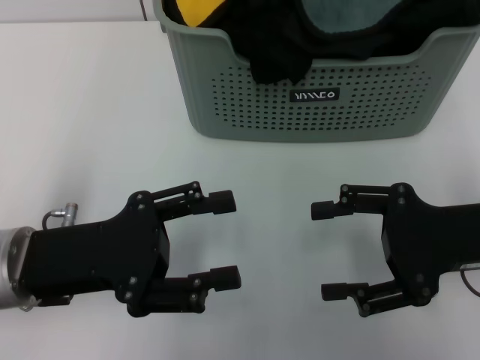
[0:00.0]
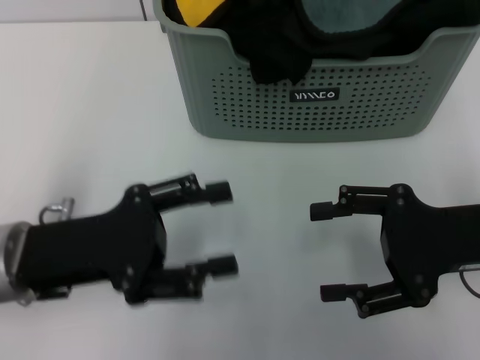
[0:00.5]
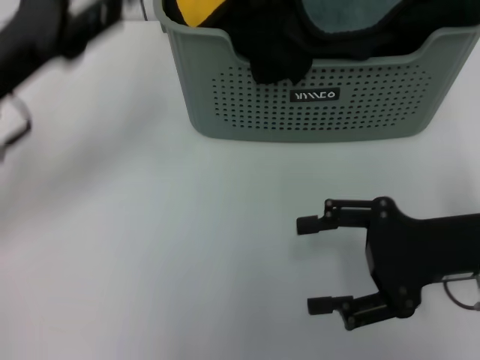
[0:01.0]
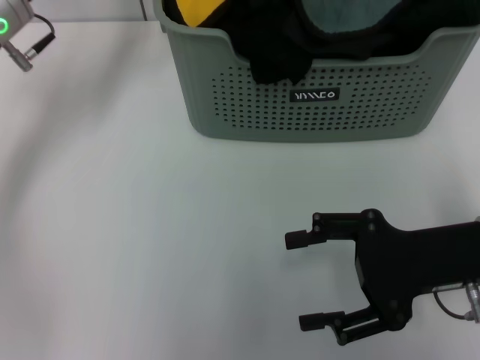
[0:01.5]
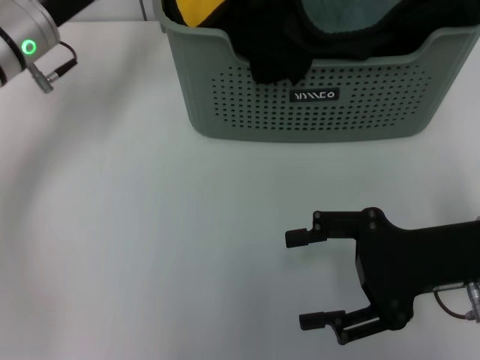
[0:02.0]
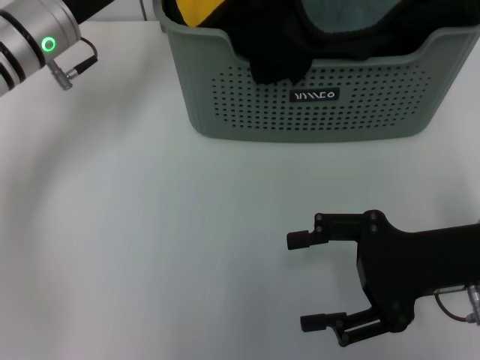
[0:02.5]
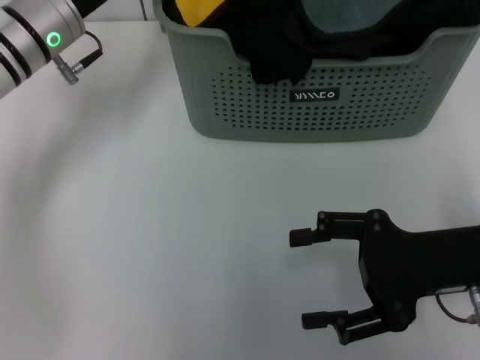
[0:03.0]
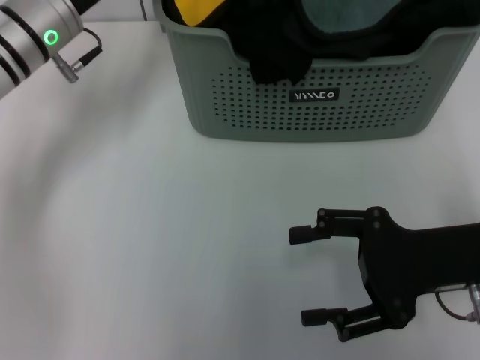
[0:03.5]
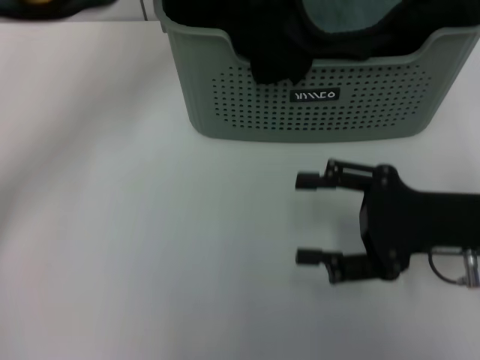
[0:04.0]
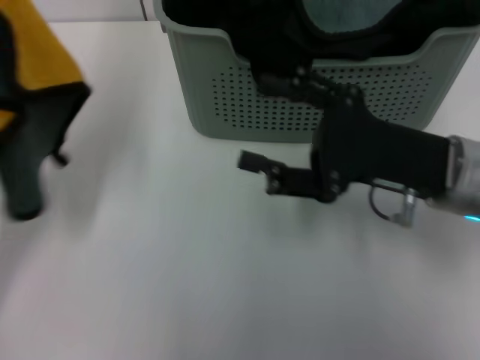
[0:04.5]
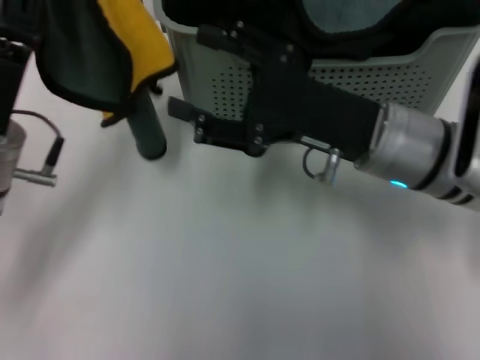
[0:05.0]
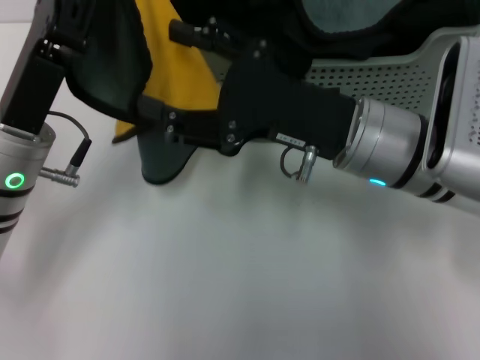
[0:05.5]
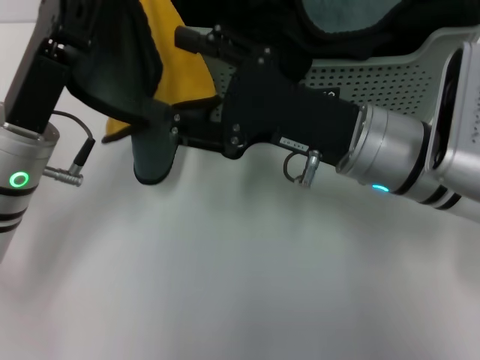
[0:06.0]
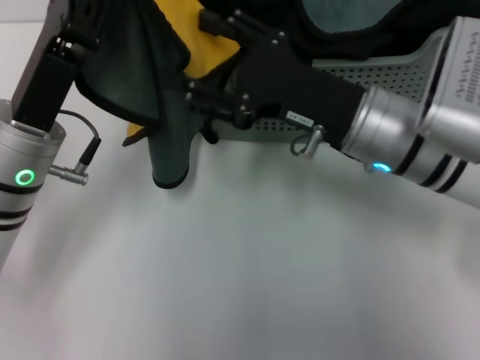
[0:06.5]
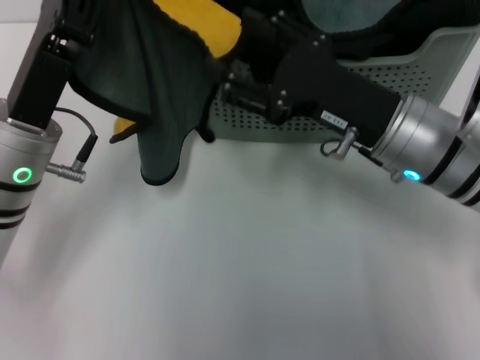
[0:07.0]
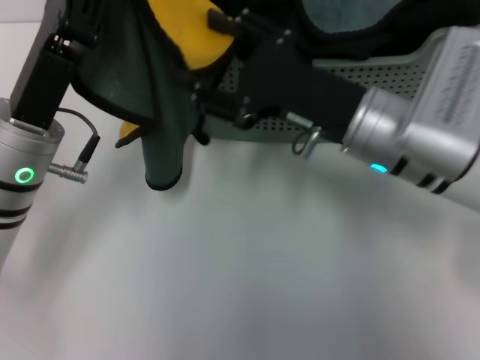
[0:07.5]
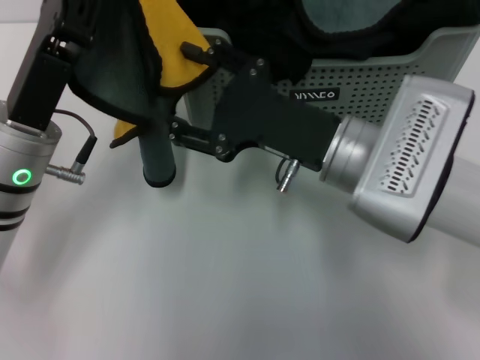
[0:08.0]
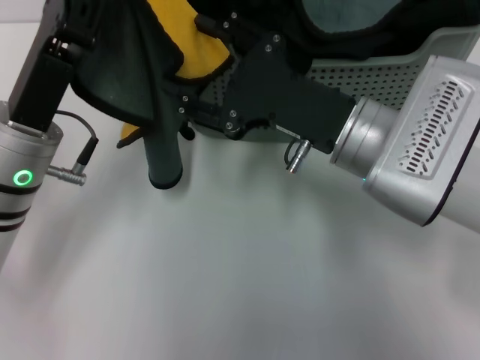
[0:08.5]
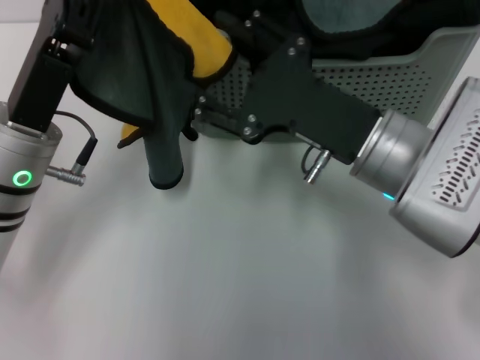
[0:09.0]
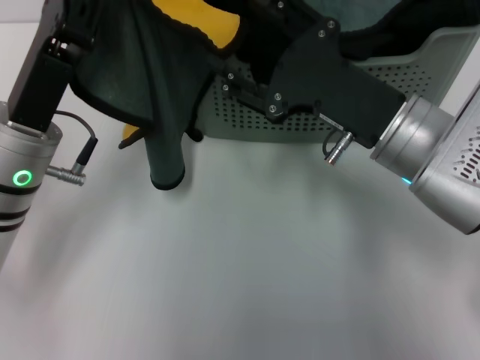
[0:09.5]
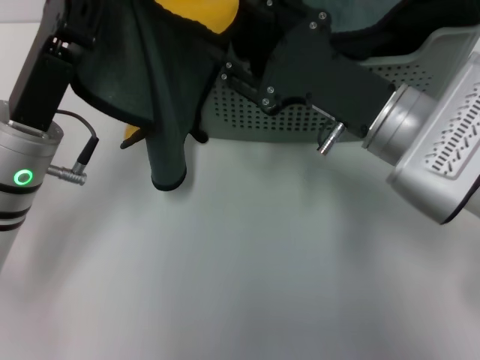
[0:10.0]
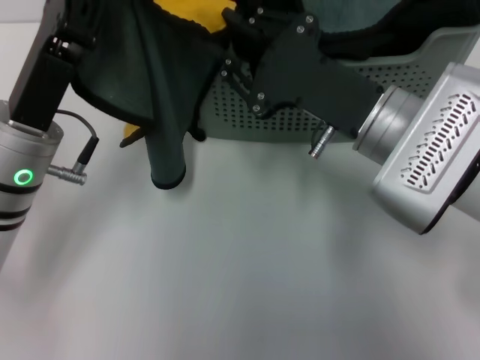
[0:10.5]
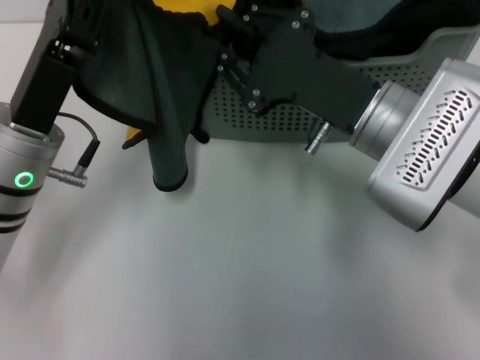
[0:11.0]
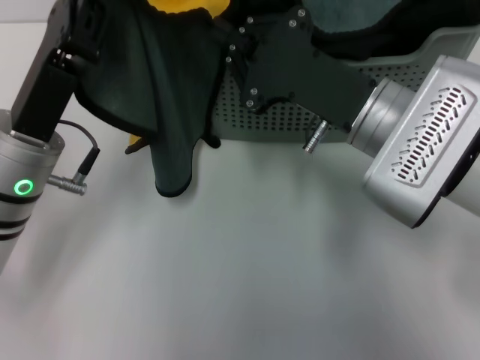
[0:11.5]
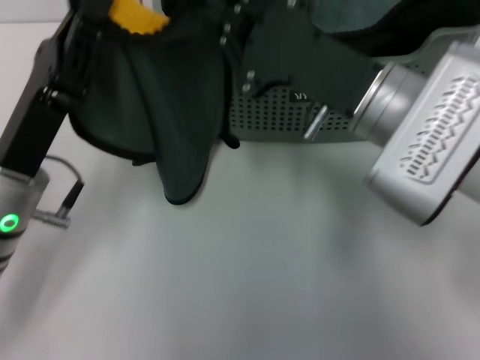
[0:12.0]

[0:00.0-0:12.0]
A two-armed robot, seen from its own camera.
Task of the whole recording: pick up the towel from the storage box and lay it flat on the table.
Step, 0:00.0 to 0:03.5: Pick up a towel with the left gripper.
Step, 0:04.0 to 0:11.0: Spread the towel flat with the left gripper.
0:00.0 to 0:02.0: The left gripper shifts roughly 20 cm forward.
0:02.0 to 0:04.0: The left gripper moves backward, about 10 cm, and closes up.
0:04.0 to 0:06.0: The right gripper is displaced to the left by roughly 10 cm, while the left gripper heads to the right and downward, covering about 10 cm.
0:06.0 to 0:08.0: There are only small adjustments of the grippers.
0:10.0 to 0:12.0: The right gripper closes its fingers.

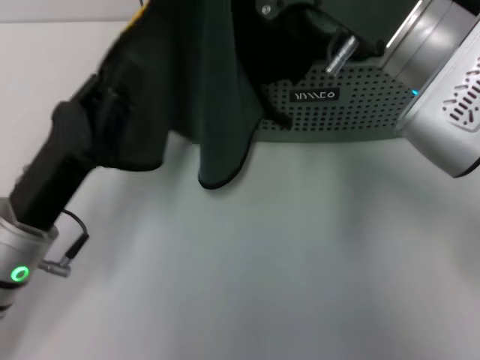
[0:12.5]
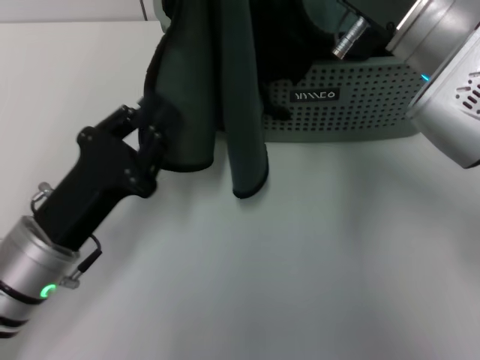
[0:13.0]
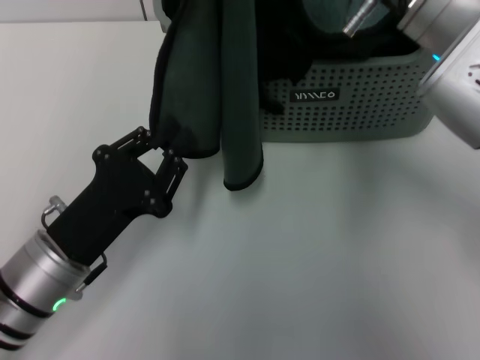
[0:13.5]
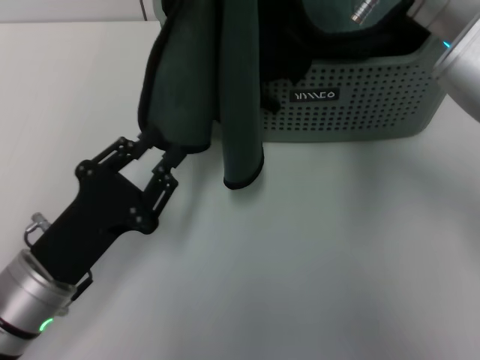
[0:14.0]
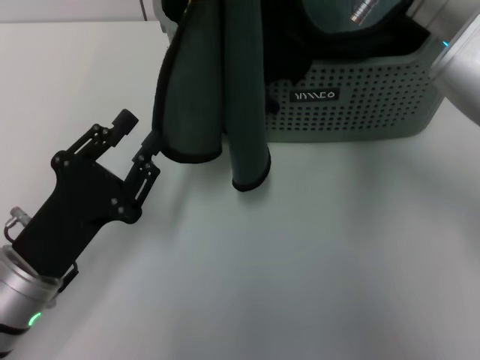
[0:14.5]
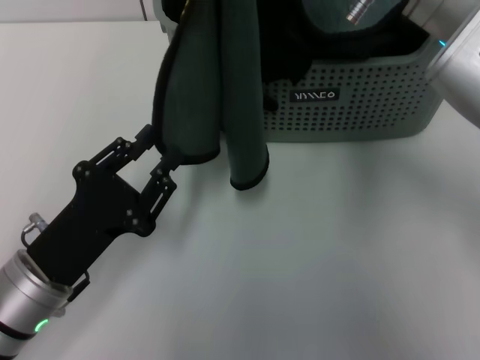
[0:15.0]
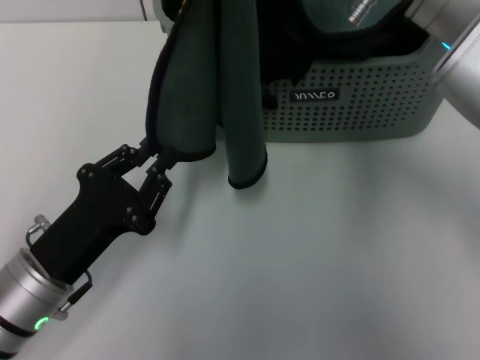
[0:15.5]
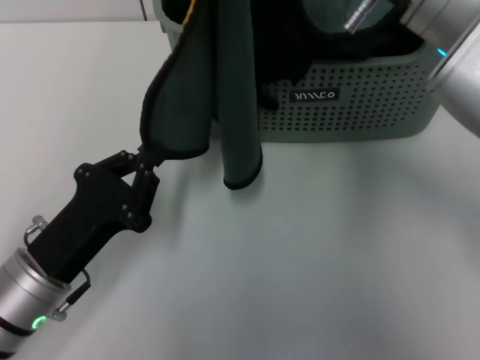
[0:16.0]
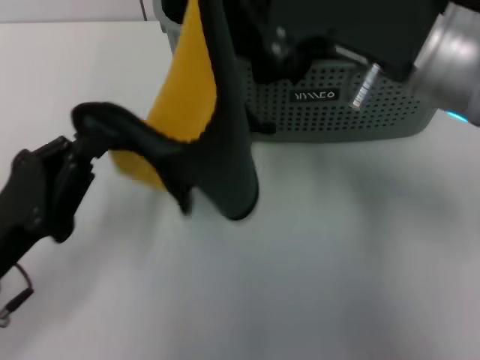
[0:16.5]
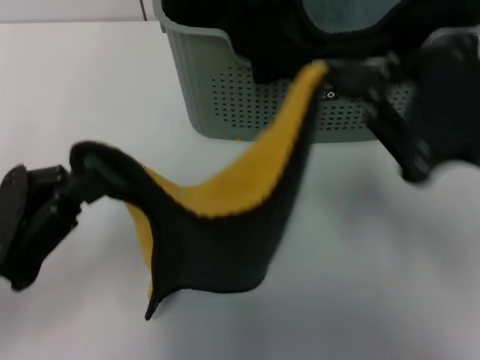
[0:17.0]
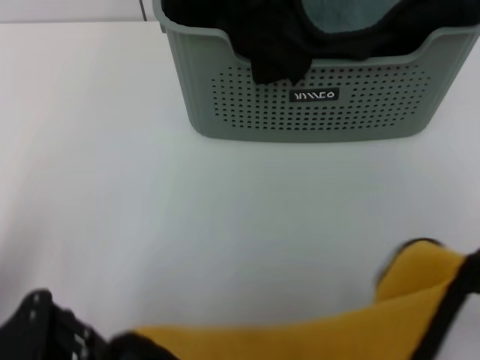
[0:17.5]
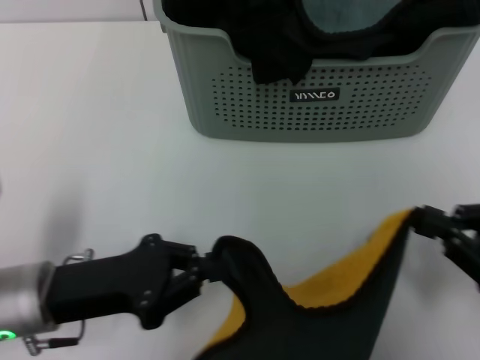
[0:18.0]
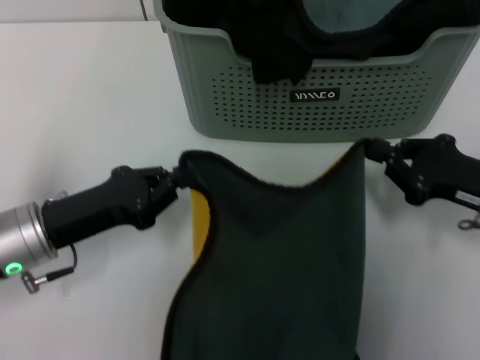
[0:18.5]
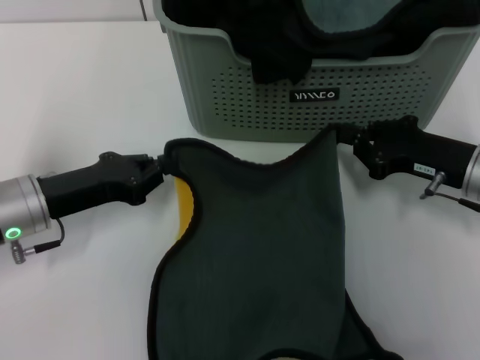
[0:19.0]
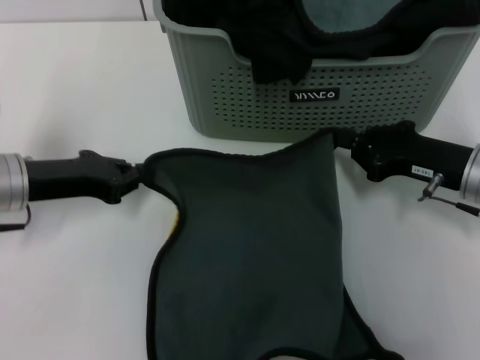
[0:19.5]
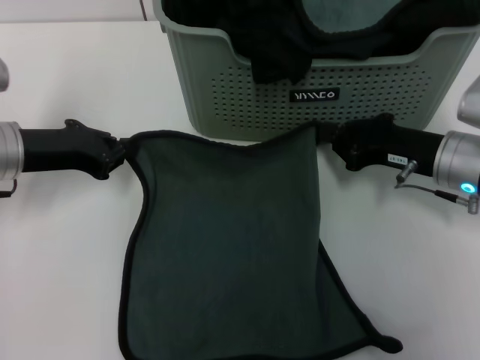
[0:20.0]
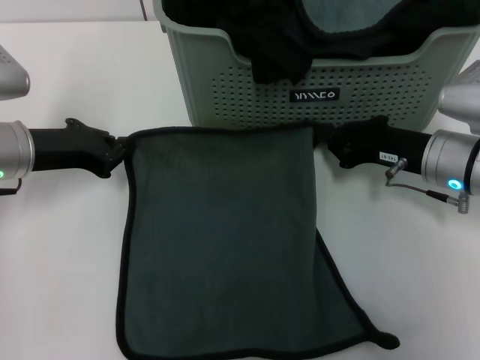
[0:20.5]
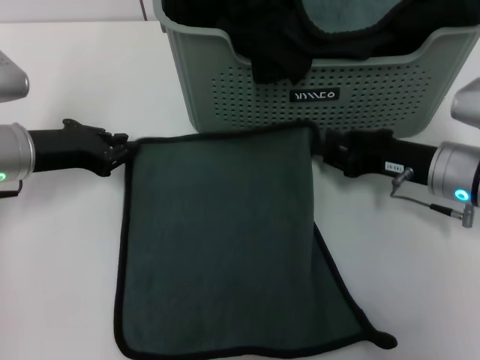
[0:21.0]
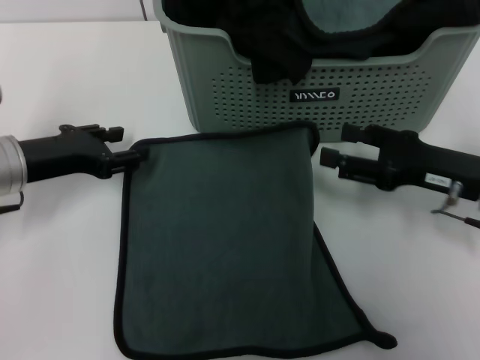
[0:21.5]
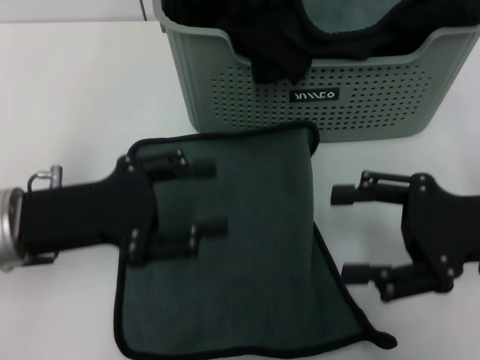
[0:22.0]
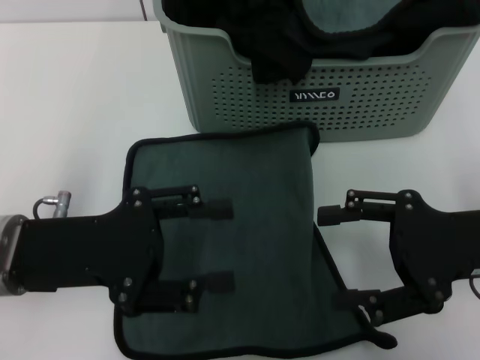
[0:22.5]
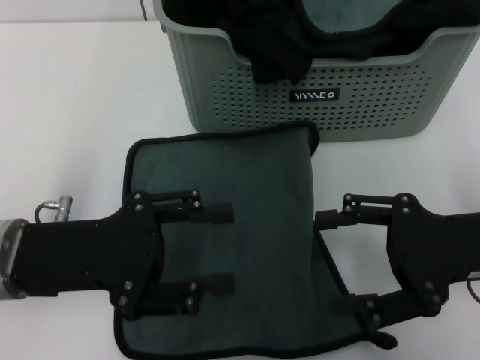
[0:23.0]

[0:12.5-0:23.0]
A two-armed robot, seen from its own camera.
Task of the whole recording: pick up the towel from the storage box and lay it flat on the table.
Step, 0:12.5 to 0:21.0: Spread the towel flat with the right gripper.
0:14.5 to 0:16.5: The left gripper closes up.
0:16.5 to 0:19.0: The right gripper moves downward and to the right, roughly 20 cm, and goes backward and returns, some 15 cm each way, while the left gripper is displaced forward by approximately 10 cm.
0:19.0 to 0:21.0: The left gripper travels forward by some 5 cm.
0:21.0 to 0:23.0: The left gripper is displaced backward by about 10 cm, and opens up; the right gripper heads backward and upward, covering approximately 10 cm, and opens its fingers.
